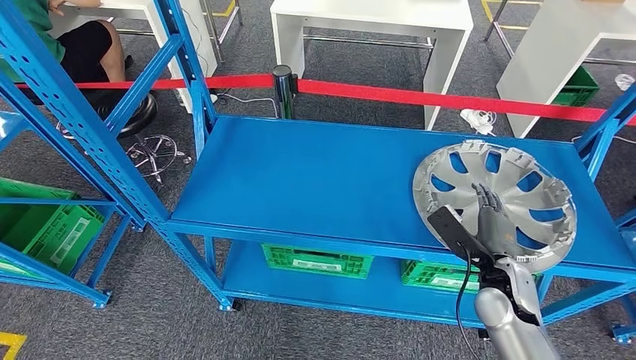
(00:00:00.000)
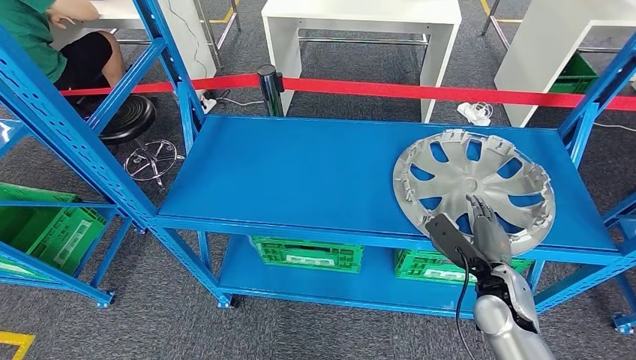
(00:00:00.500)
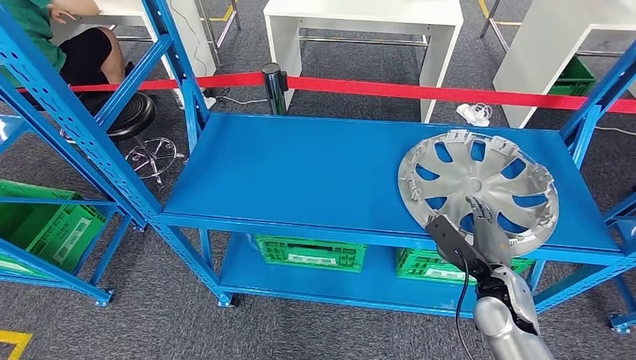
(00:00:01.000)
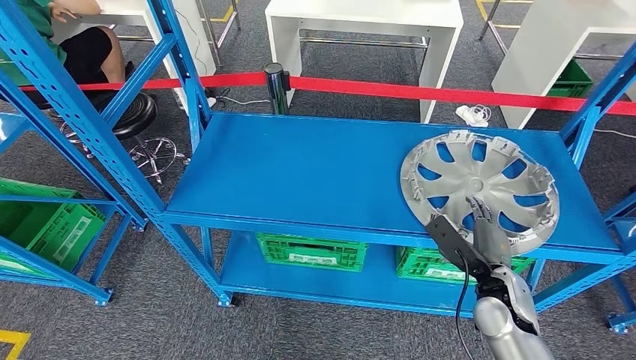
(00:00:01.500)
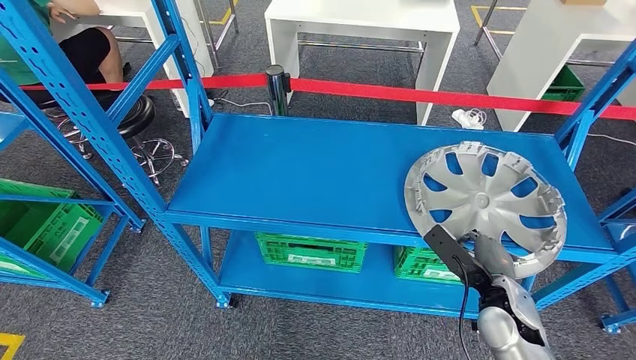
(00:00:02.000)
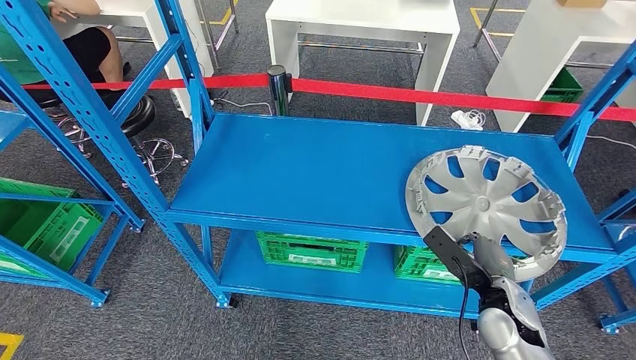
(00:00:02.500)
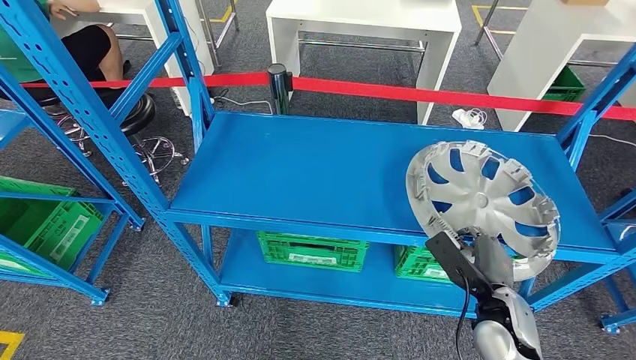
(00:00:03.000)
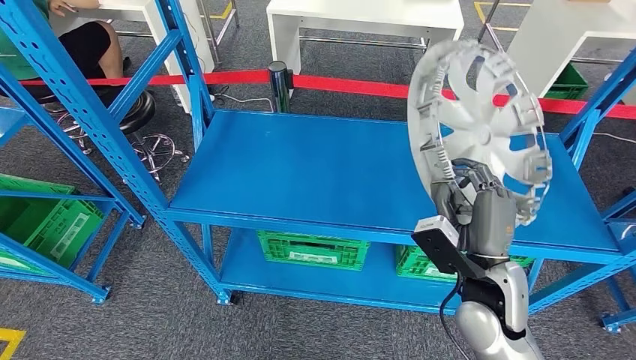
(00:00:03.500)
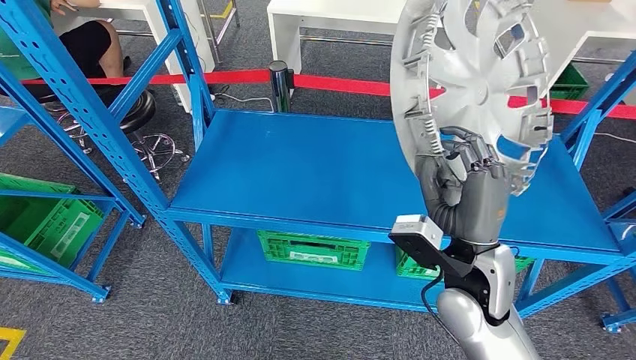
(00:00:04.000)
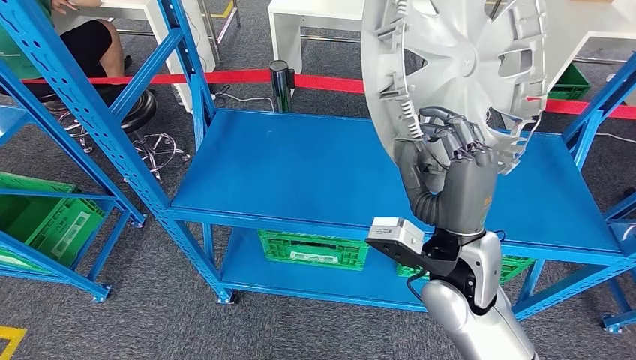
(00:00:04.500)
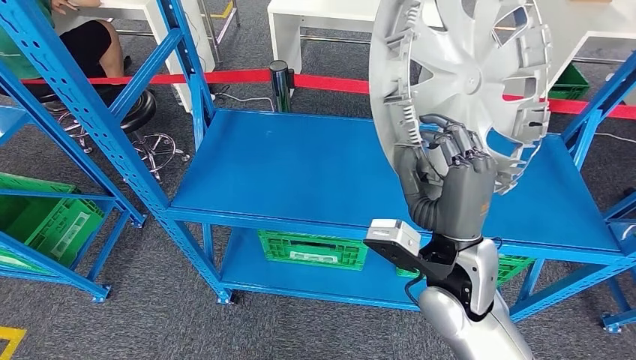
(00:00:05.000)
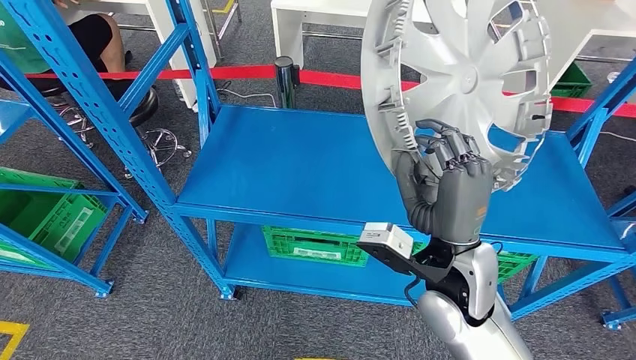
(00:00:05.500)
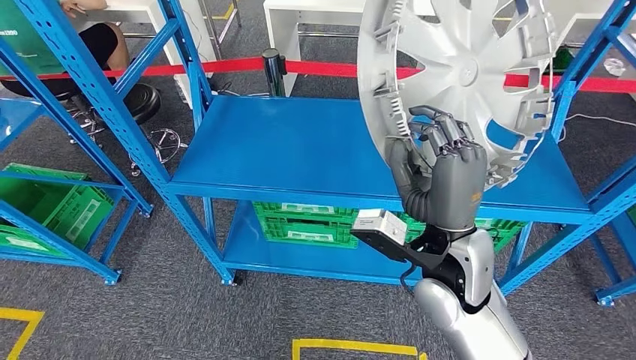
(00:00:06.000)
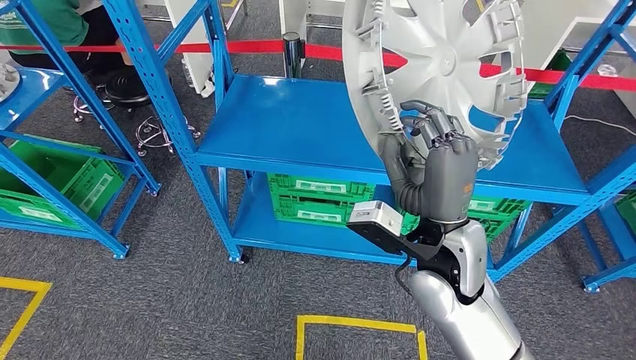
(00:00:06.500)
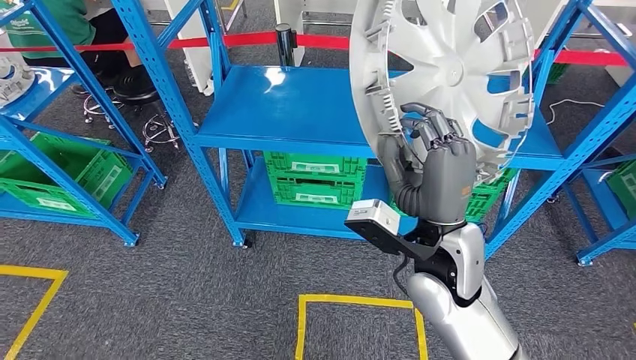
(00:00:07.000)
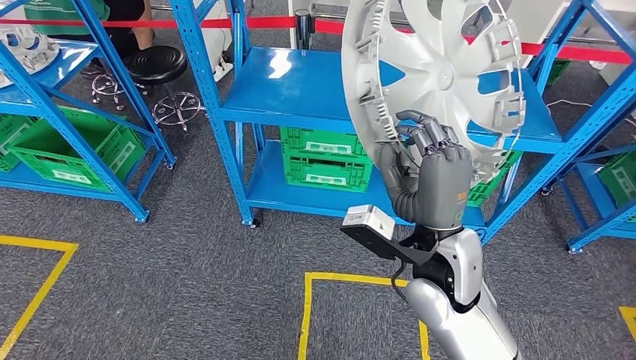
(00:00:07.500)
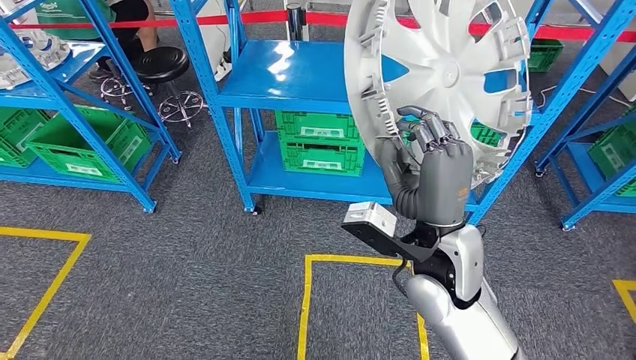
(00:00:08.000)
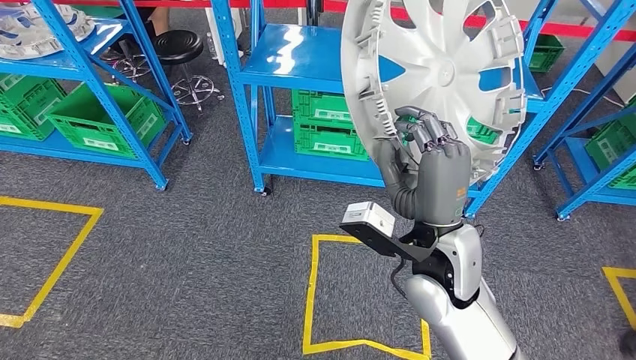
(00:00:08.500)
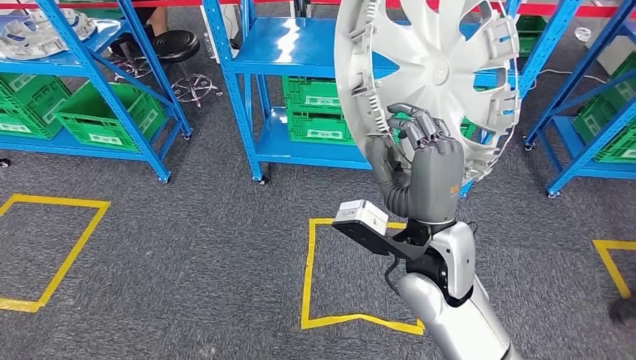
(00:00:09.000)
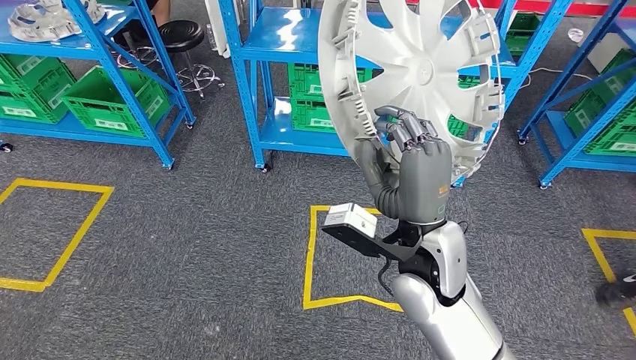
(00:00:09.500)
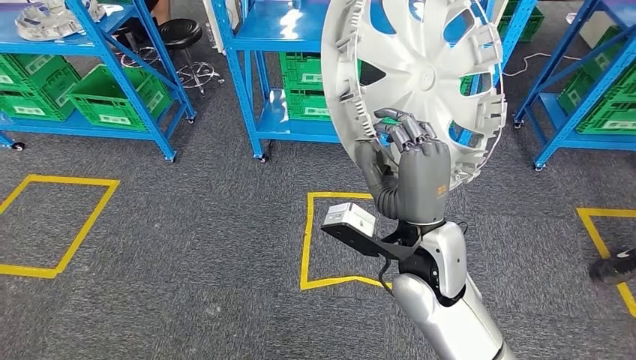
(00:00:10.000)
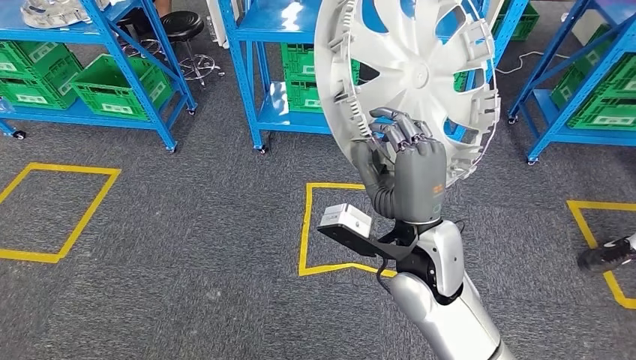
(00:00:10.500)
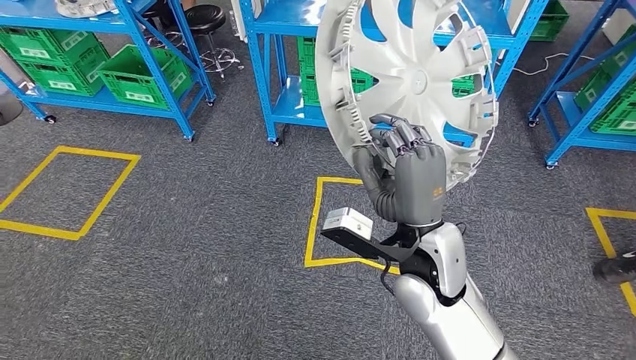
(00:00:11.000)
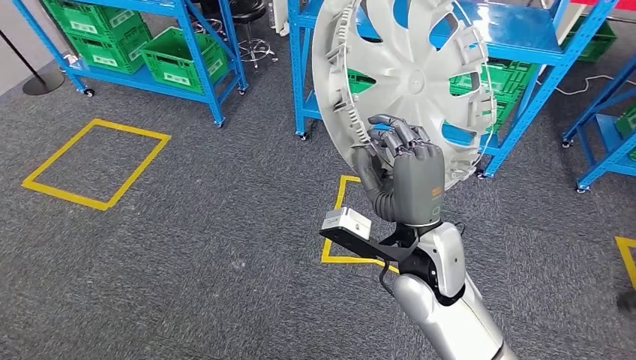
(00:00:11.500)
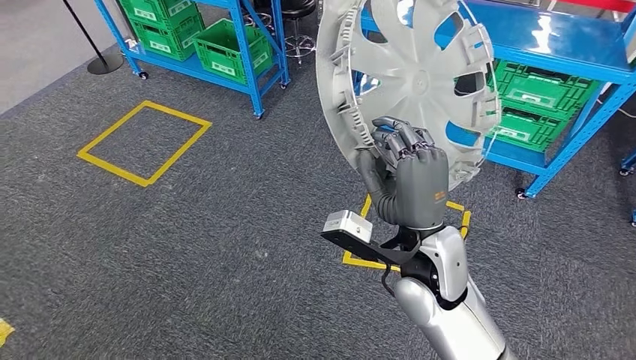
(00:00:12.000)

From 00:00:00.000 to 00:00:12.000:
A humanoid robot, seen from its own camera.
Step, from 00:00:00.000 to 00:00:05.000: Pick up the small component from the shelf.

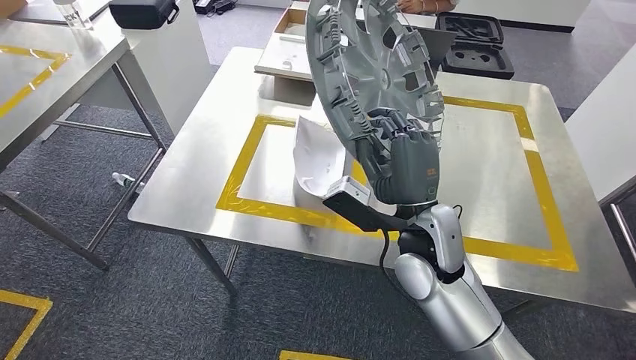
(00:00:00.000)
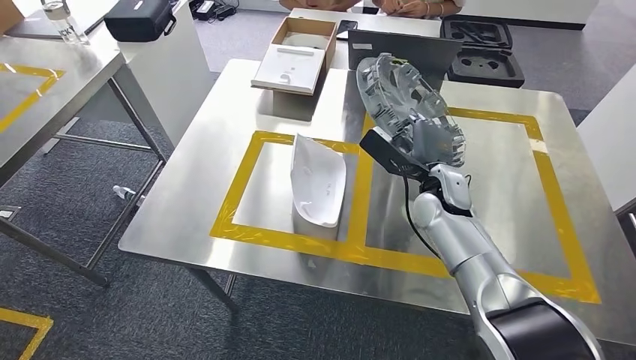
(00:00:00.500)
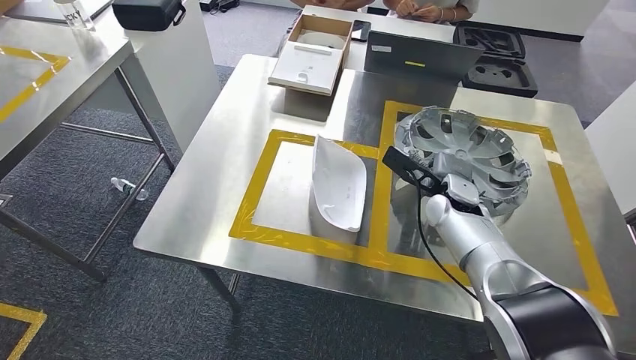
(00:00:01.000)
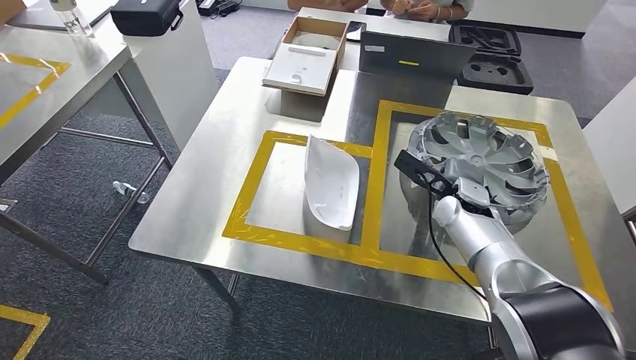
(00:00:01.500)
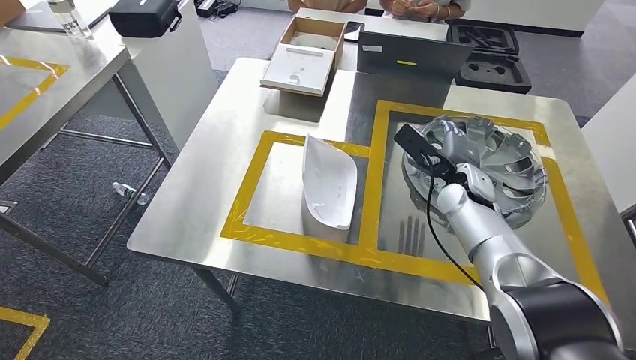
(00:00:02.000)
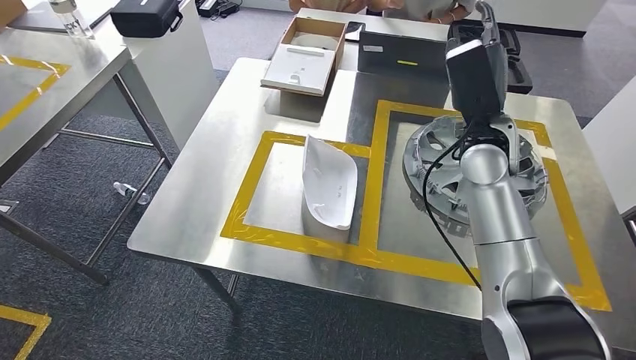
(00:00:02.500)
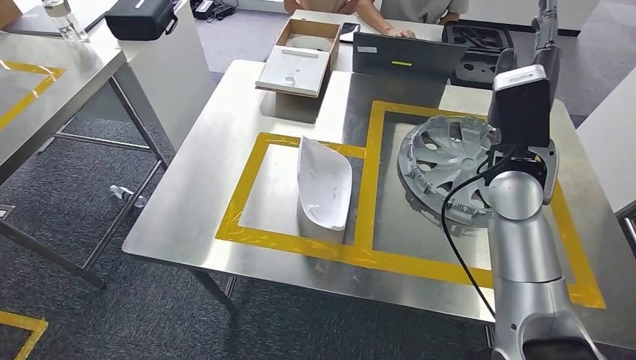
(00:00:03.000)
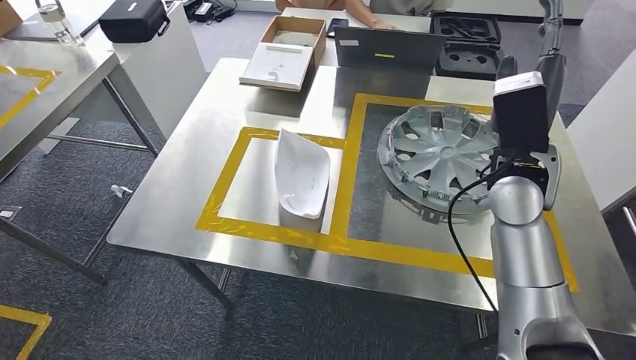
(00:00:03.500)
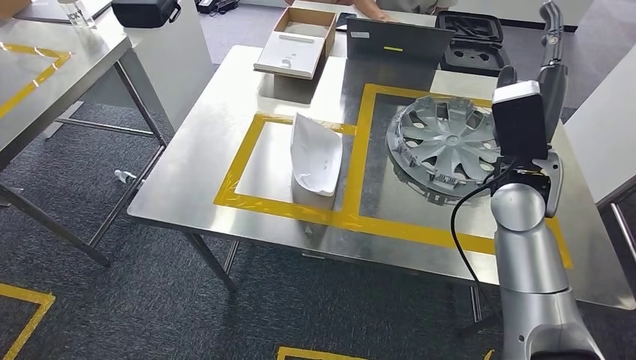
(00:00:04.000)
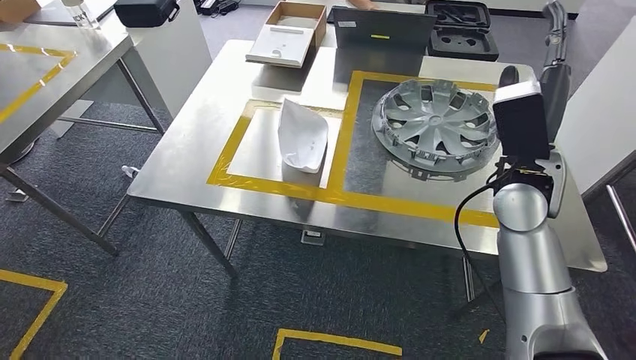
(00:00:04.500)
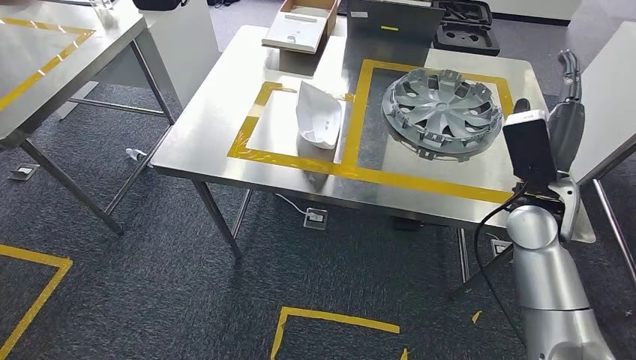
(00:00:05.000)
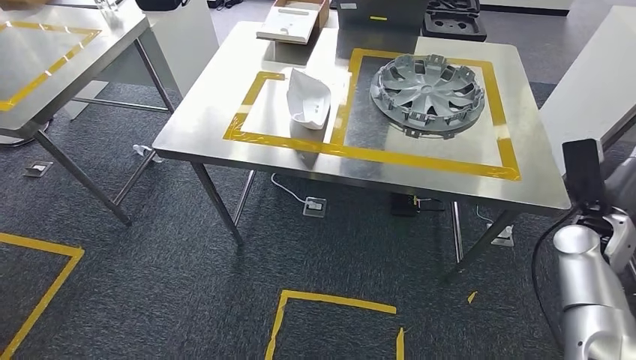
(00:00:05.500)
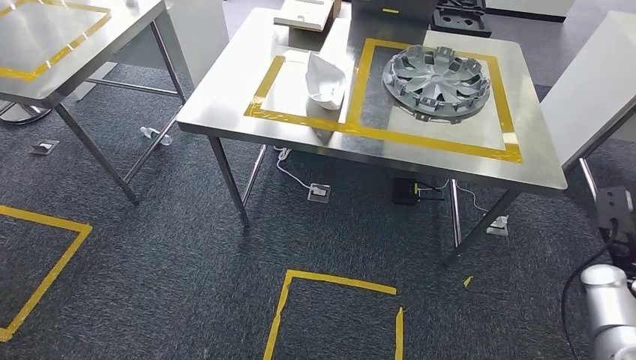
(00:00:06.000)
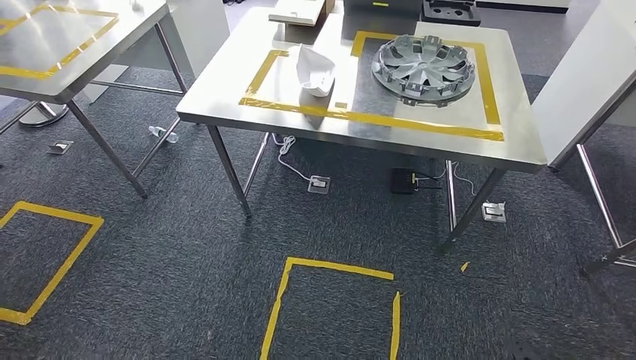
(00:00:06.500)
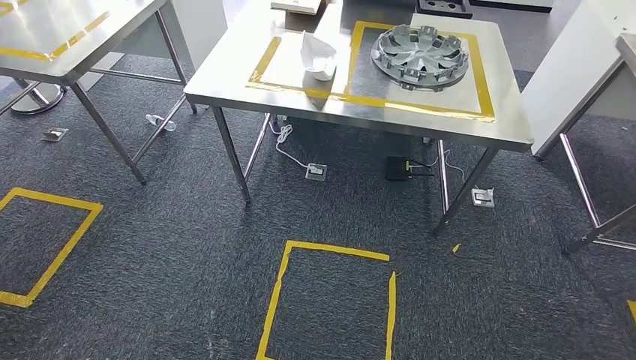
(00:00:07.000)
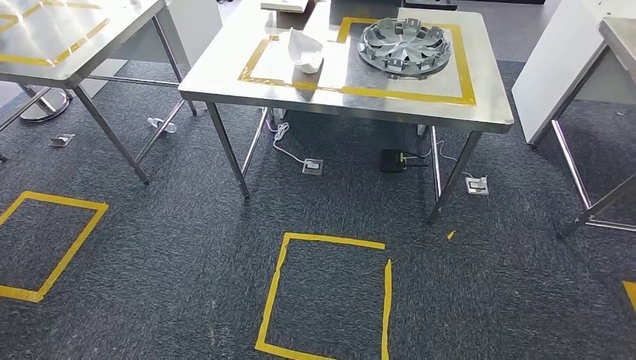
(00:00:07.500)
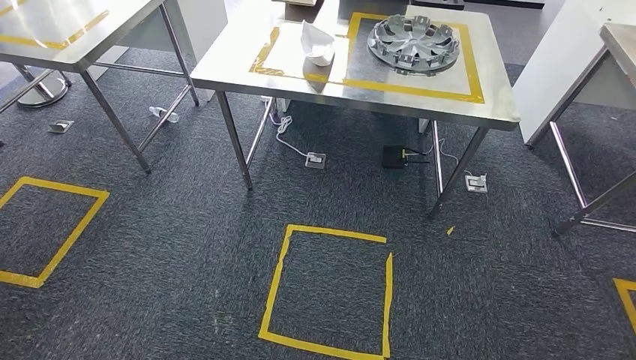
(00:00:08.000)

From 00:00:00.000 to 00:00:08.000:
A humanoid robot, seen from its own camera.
Step, from 00:00:00.000 to 00:00:03.500: Insert the small component into the corresponding slot on the workbench.
Step, from 00:00:04.000 to 00:00:08.000: Return to the initial position at the workbench.
